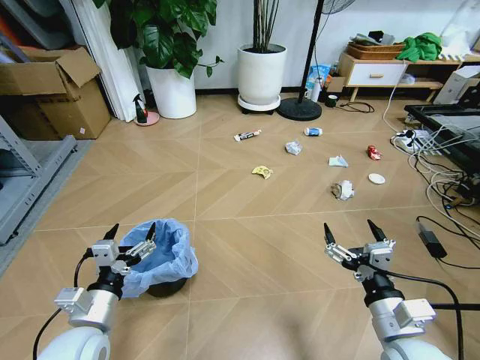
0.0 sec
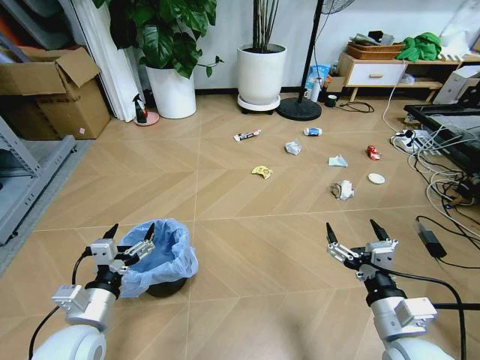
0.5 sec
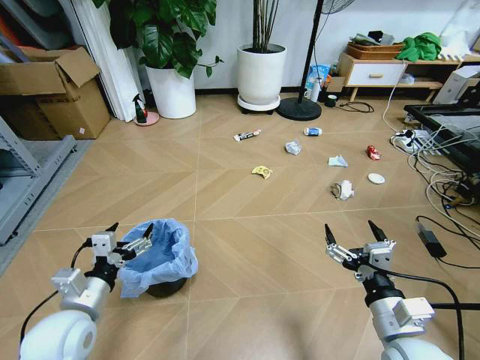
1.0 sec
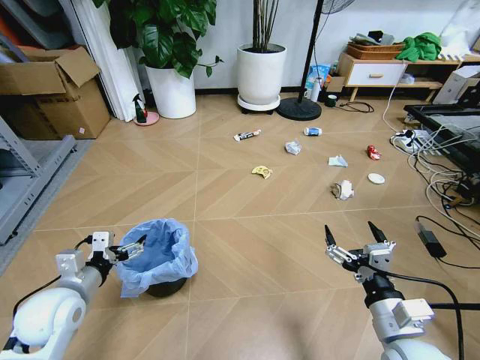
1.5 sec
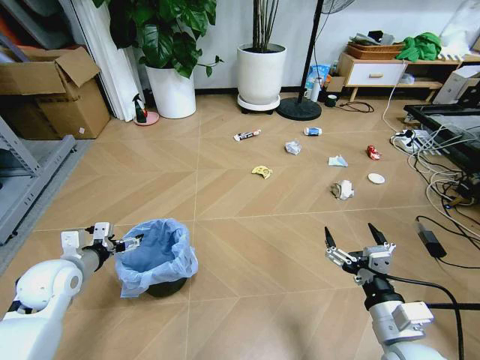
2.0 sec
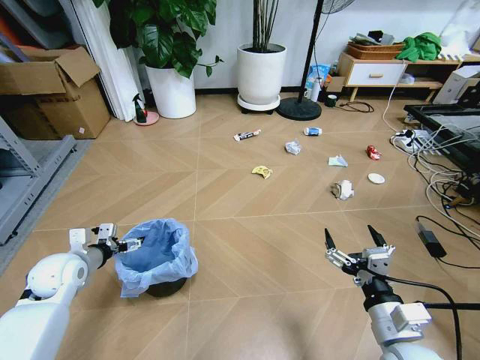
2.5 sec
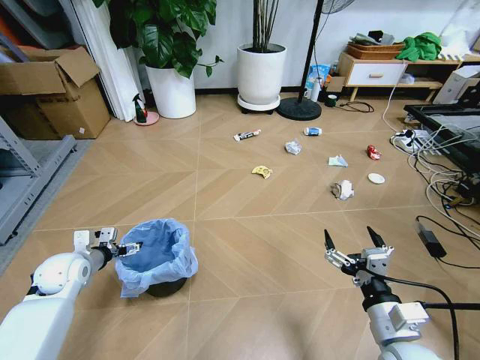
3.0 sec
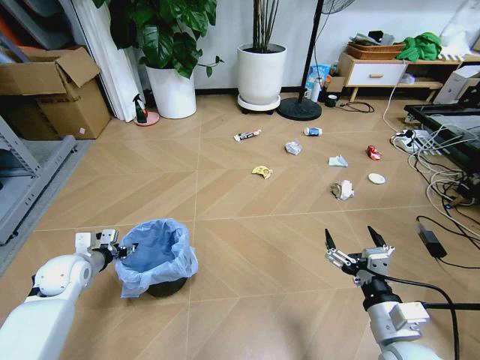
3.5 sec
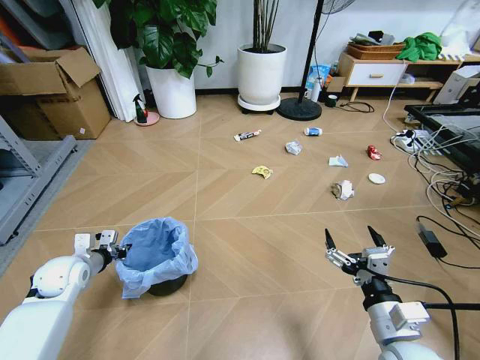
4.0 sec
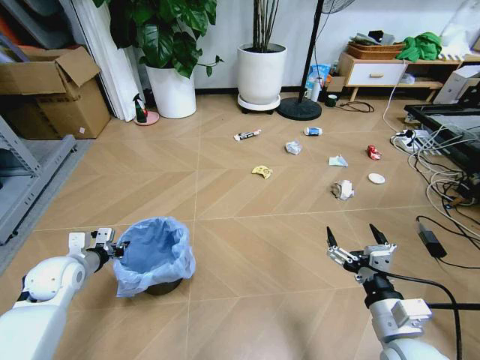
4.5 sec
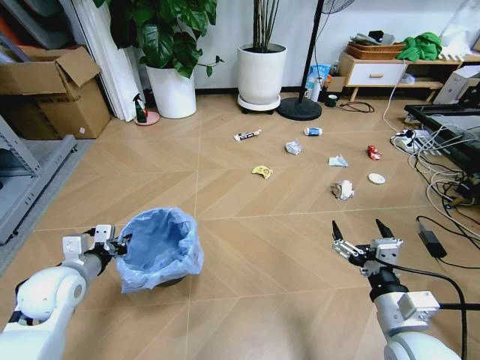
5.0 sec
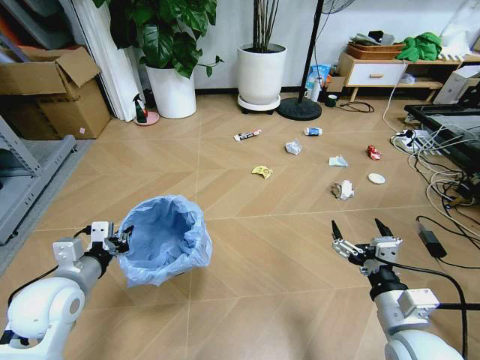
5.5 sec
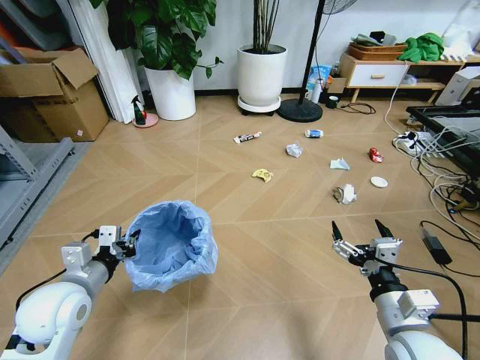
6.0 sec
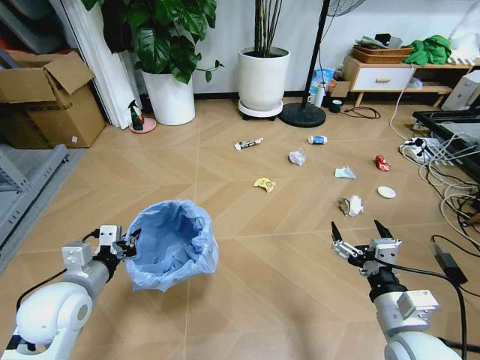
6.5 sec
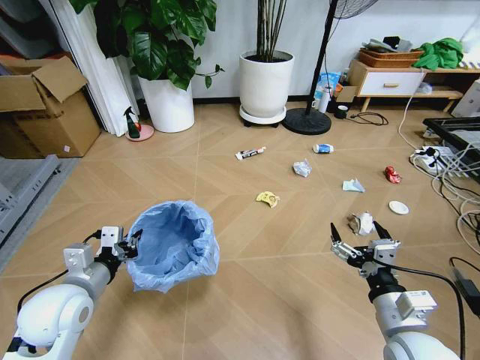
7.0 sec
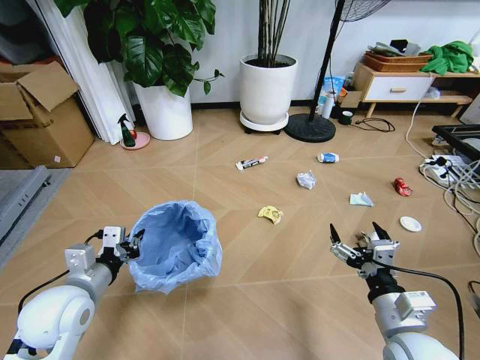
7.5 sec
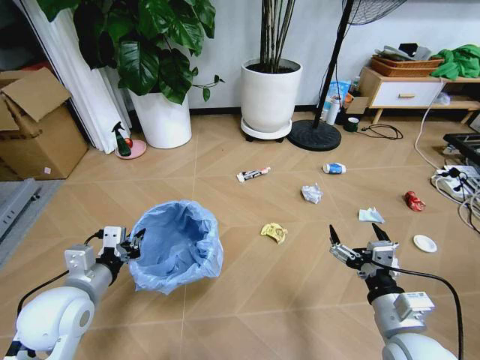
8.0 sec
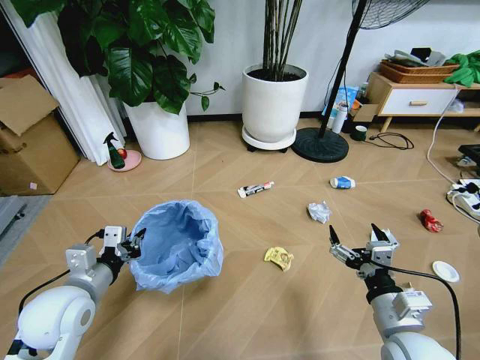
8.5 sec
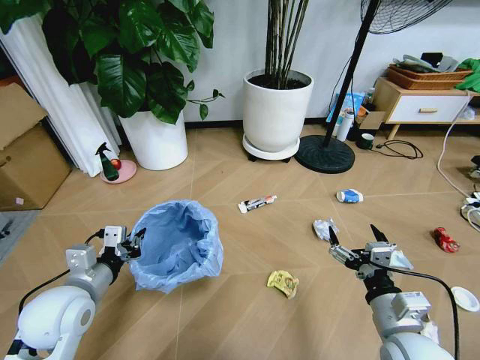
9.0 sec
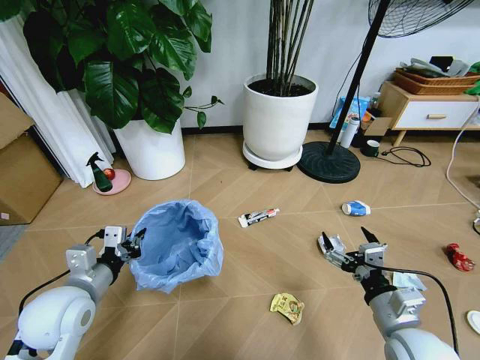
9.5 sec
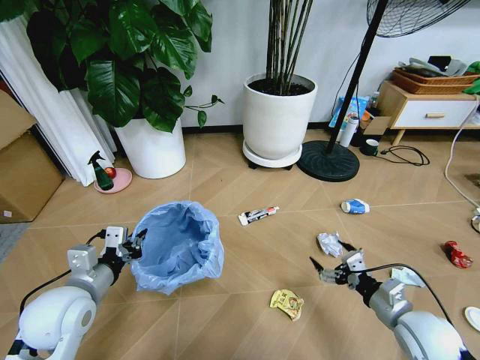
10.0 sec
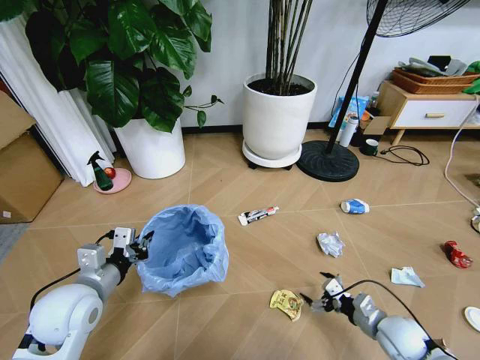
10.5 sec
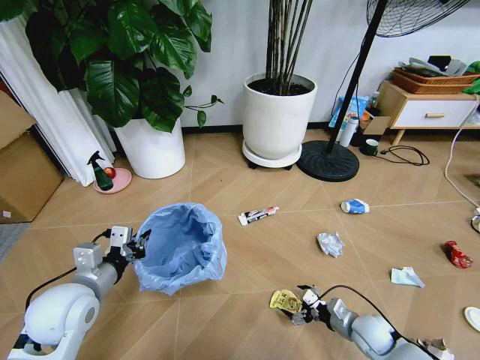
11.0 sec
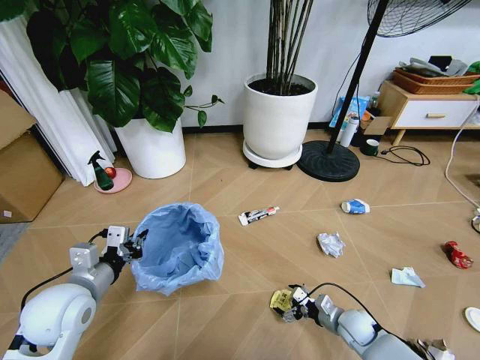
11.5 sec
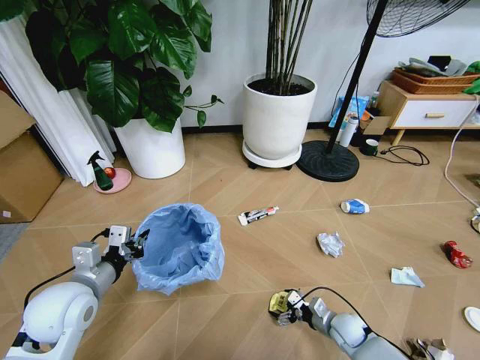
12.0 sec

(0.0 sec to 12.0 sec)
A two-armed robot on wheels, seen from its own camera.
Task of the whole recording: Pick up the trash bin and place the garbage on the floor into it.
2.0 sec - 4.0 sec: The left gripper moves downward, roughly 5 cm, and closes up.
4.0 sec - 6.0 sec: The left gripper shifts approximately 15 cm backward, to the right and upward.
8.0 sec - 10.0 sec: The right gripper is displaced to the right, downward and forward by about 10 cm.
10.0 sec - 12.0 sec: The right gripper travels downward by some 20 cm.

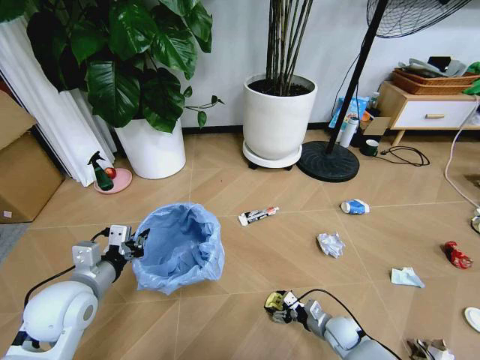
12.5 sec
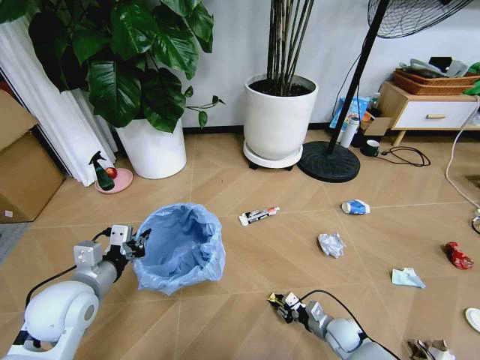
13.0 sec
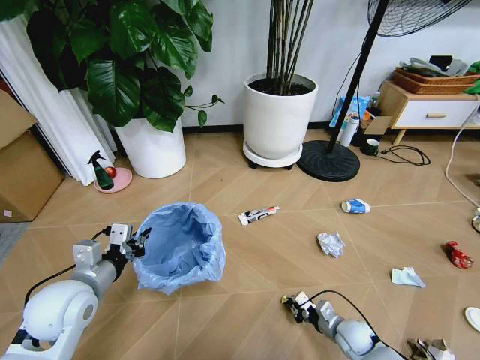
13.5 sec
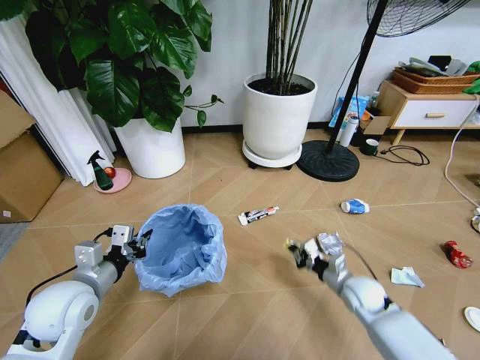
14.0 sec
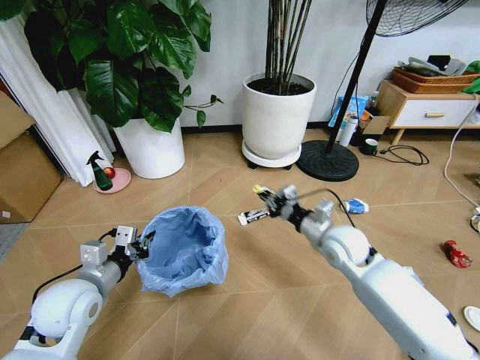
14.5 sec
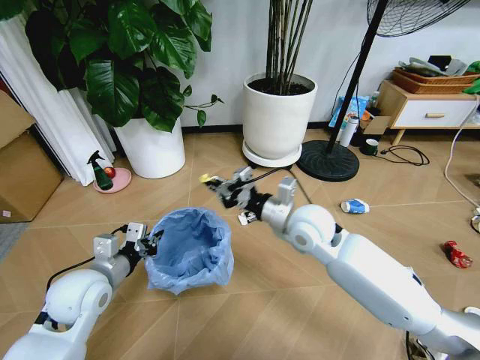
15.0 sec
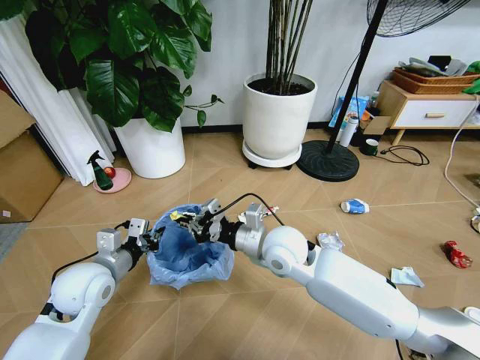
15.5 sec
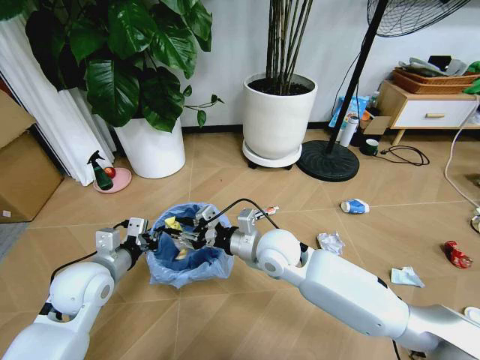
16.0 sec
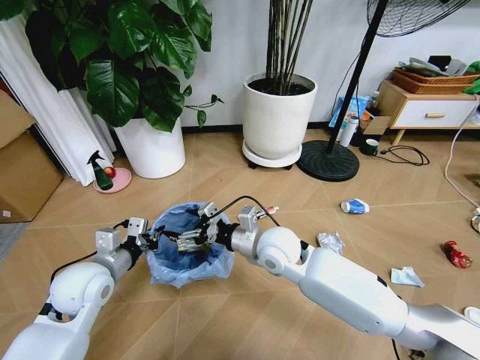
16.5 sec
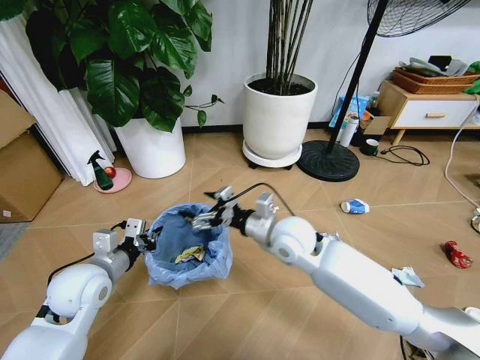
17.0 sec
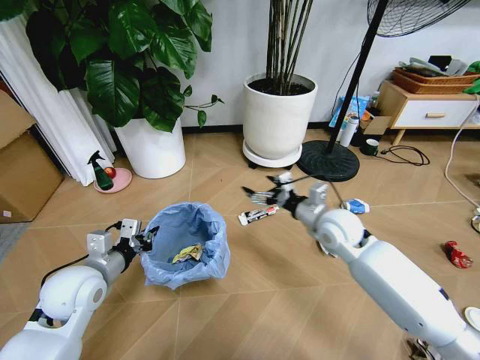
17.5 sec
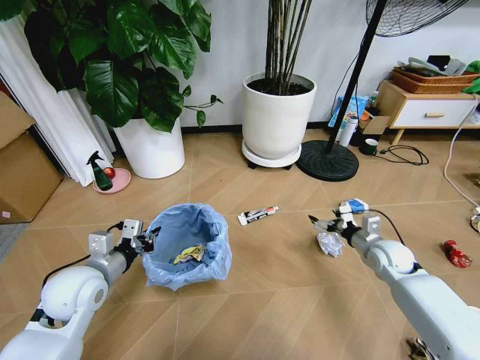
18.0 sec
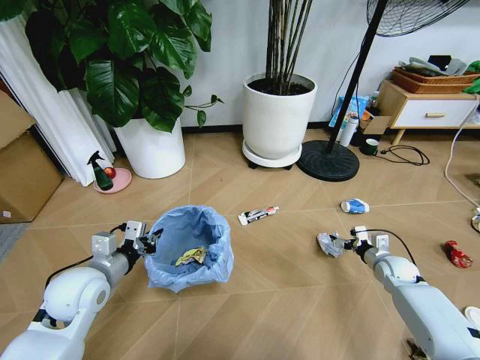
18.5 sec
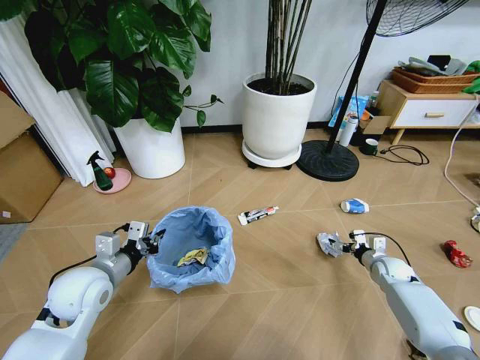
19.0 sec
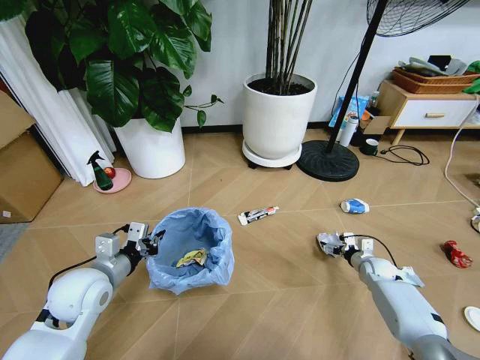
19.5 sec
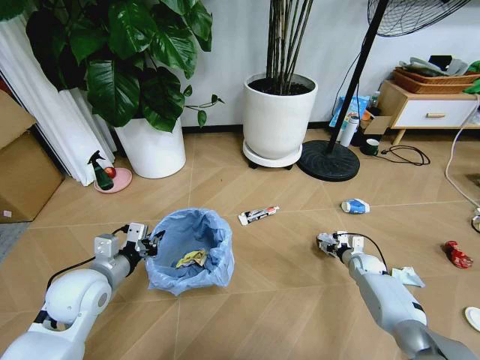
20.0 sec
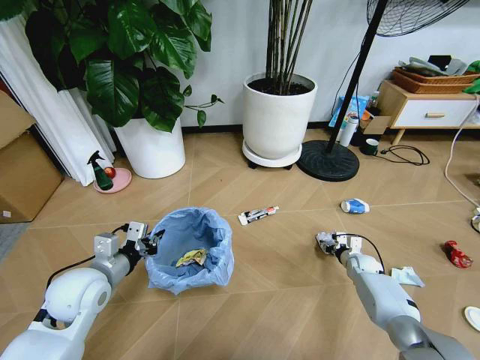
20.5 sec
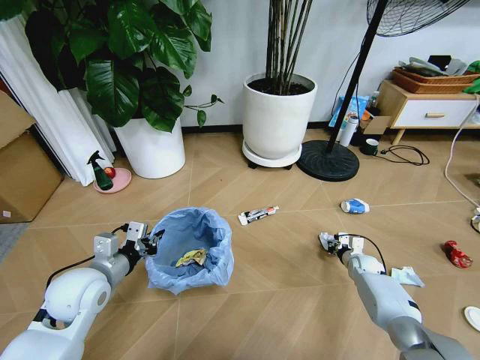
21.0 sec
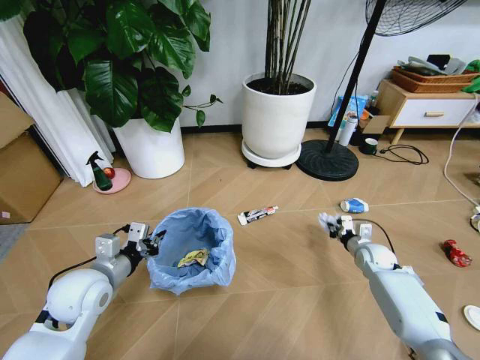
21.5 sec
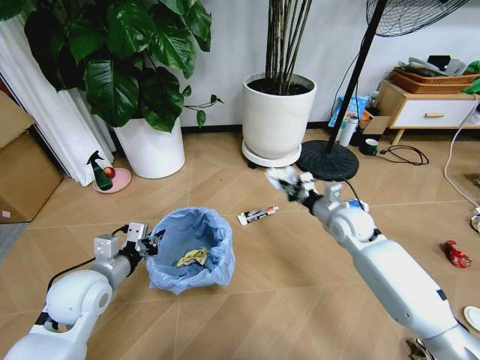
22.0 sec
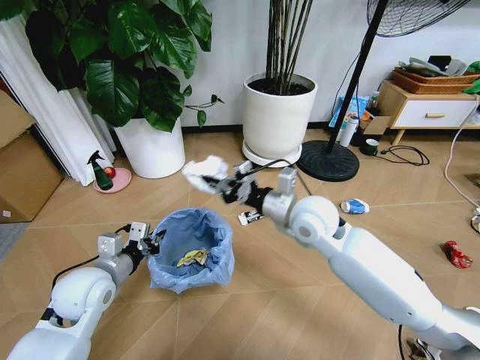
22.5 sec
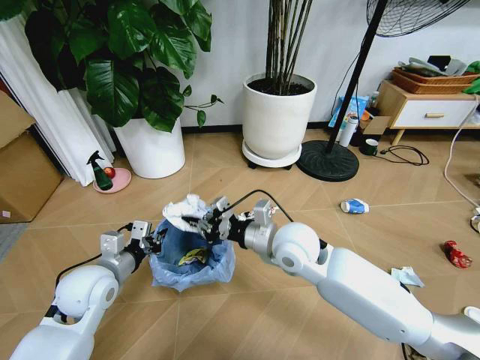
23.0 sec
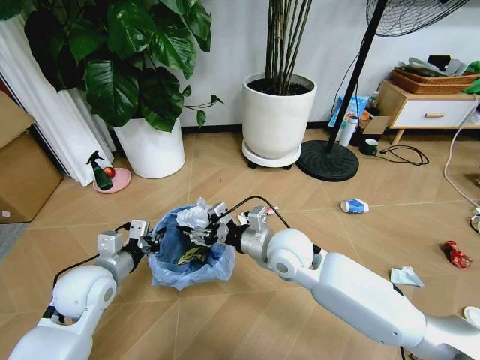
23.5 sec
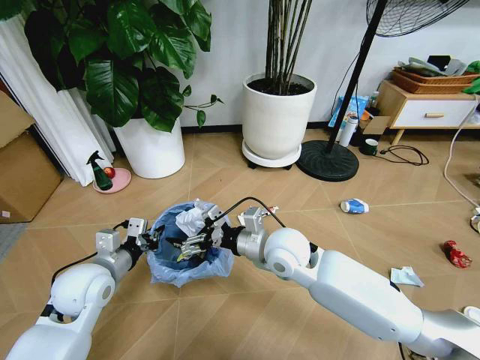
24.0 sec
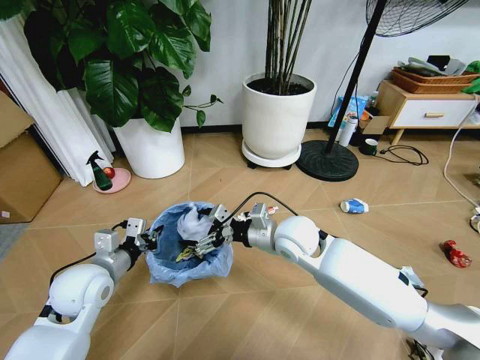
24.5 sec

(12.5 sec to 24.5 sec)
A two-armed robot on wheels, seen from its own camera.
Task of the whole recording: Pick up the trash bin and place the garbage on the floor into it.
12.5 sec - 14.5 sec: The right gripper is displaced upward and forward by about 30 cm, and closes.
14.5 sec - 16.5 sec: The right gripper goes approximately 15 cm to the left, and opens.
16.5 sec - 18.5 sec: The right gripper heads to the right and downward, covering some 40 cm.
18.5 sec - 20.5 sec: The right gripper travels downward and forward by approximately 10 cm, and closes.
20.5 sec - 22.5 sec: The right gripper is displaced upward and to the left by roughly 40 cm, and closes up.
22.5 sec - 24.5 sec: The right gripper goes roughly 5 cm downward, and opens.

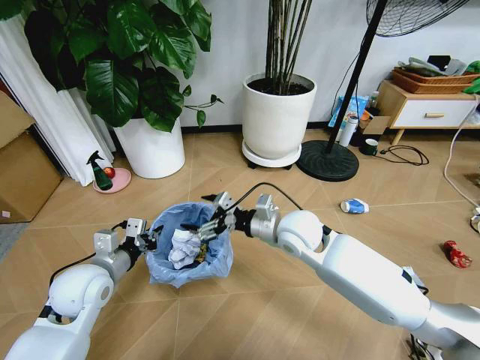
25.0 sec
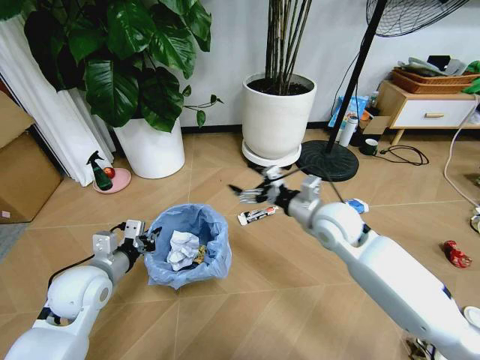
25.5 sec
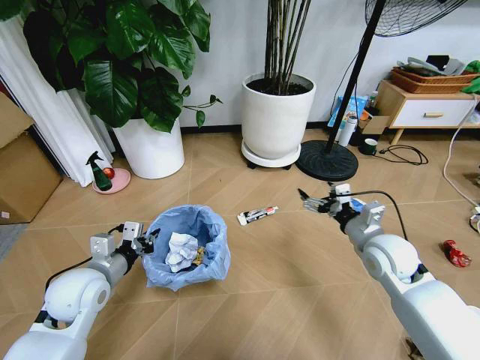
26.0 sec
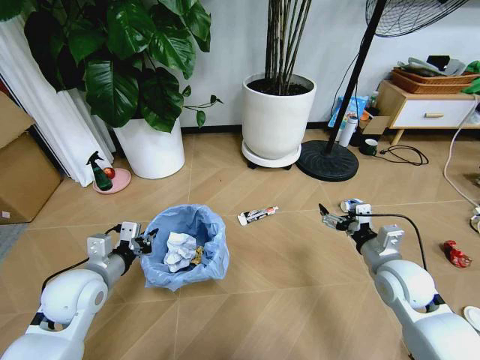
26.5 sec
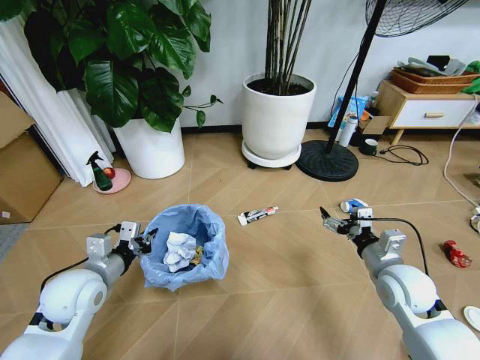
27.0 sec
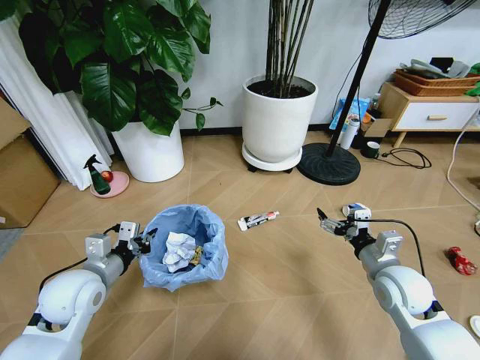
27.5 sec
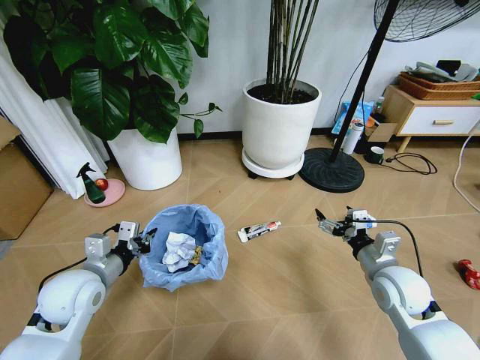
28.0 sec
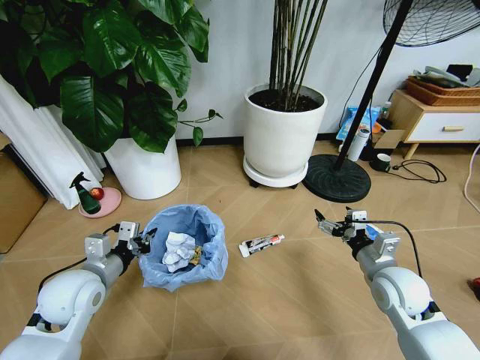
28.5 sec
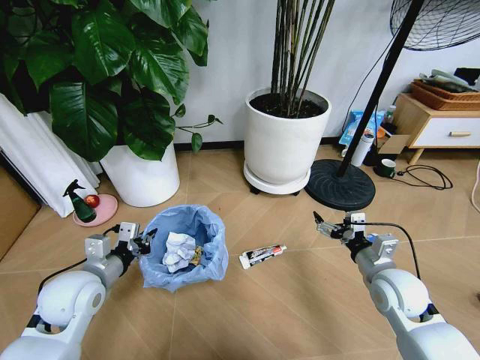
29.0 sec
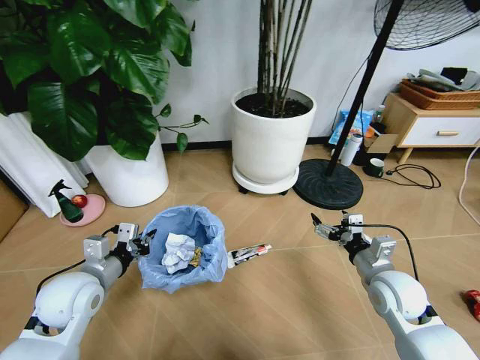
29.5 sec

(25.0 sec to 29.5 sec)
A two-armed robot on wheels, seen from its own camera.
Task of the whole recording: Pick up the trash bin and place the garbage on the floor into it.
25.0 sec - 27.0 sec: The right gripper goes roughly 25 cm to the right and backward.
